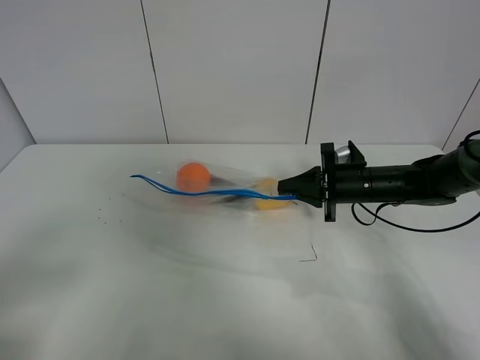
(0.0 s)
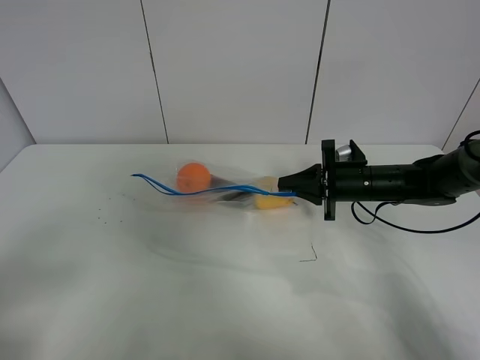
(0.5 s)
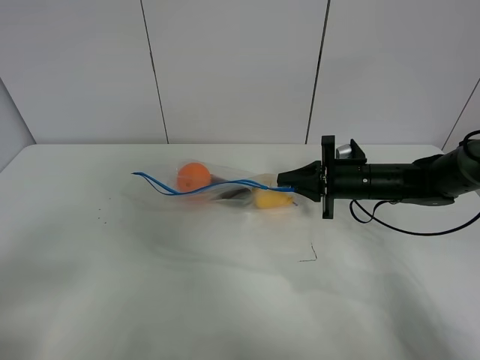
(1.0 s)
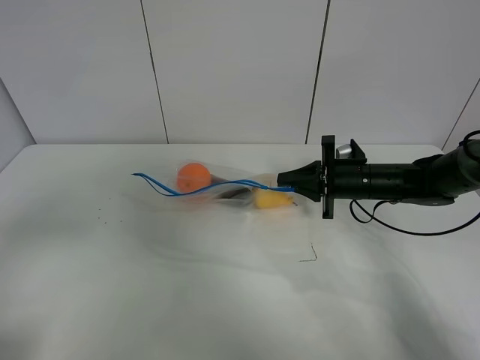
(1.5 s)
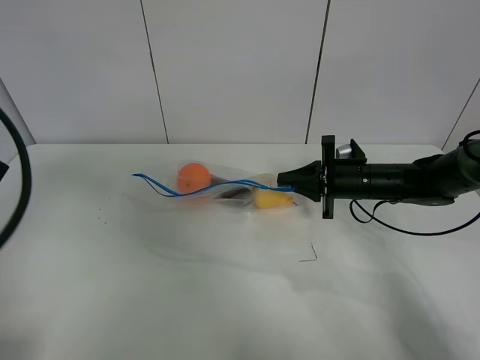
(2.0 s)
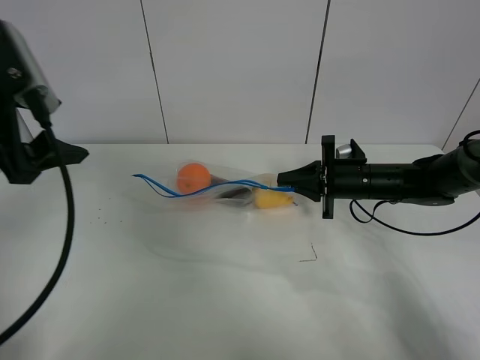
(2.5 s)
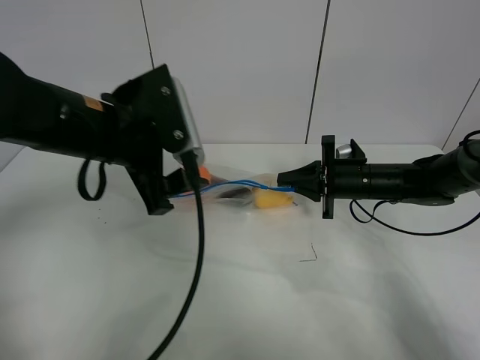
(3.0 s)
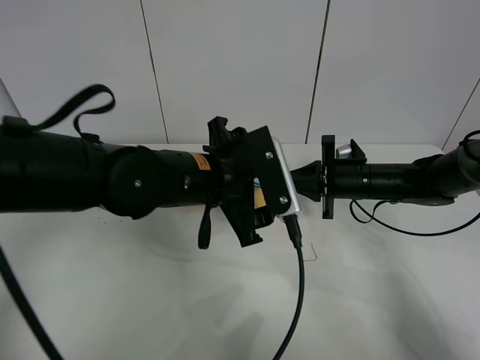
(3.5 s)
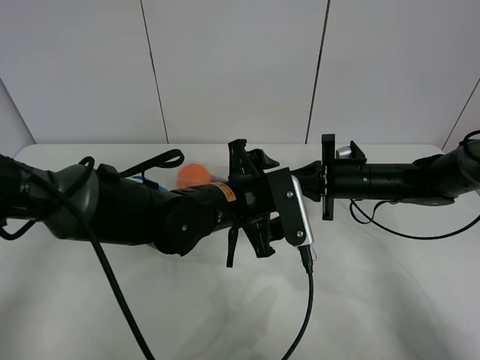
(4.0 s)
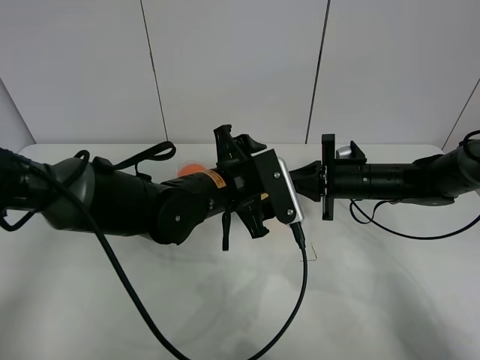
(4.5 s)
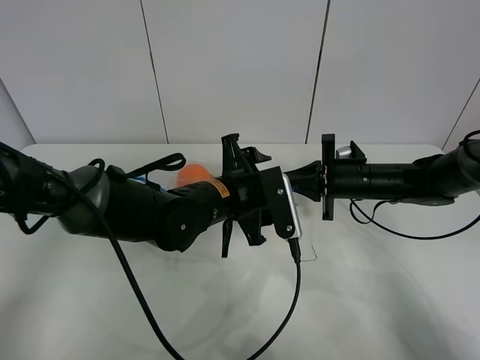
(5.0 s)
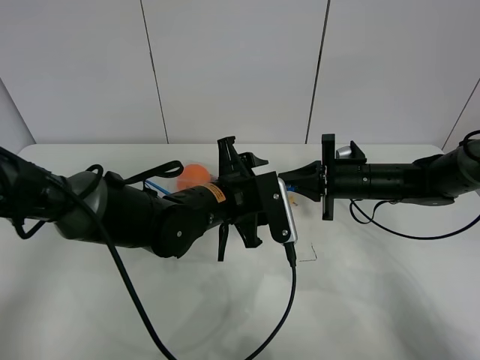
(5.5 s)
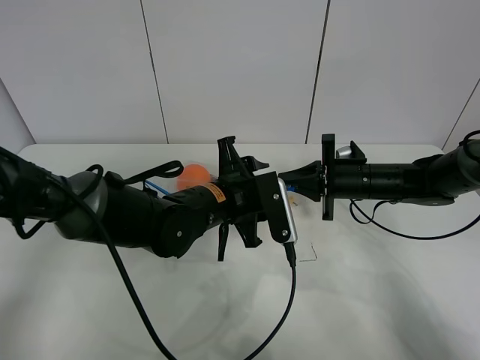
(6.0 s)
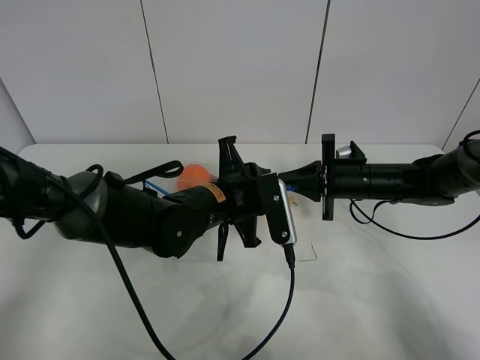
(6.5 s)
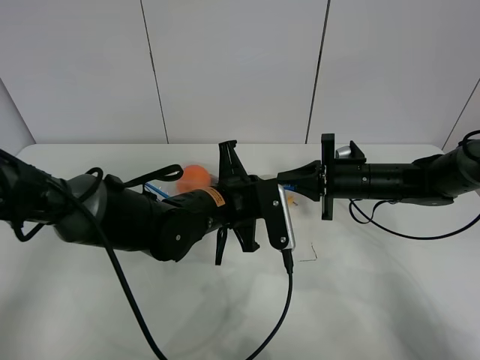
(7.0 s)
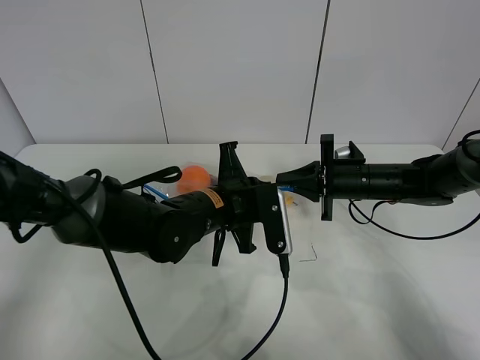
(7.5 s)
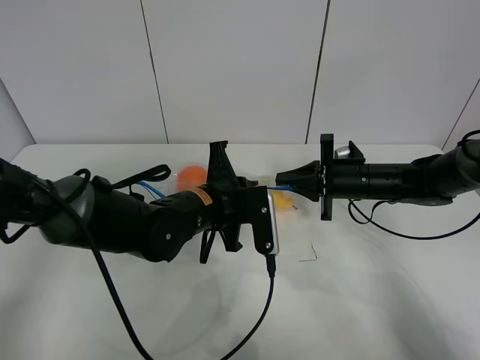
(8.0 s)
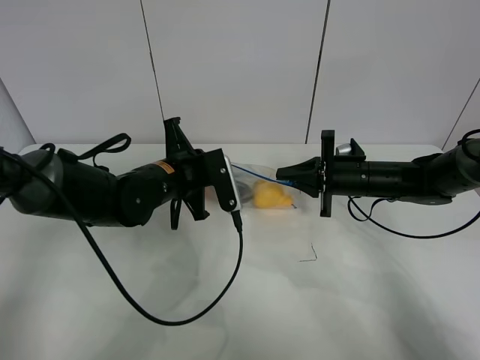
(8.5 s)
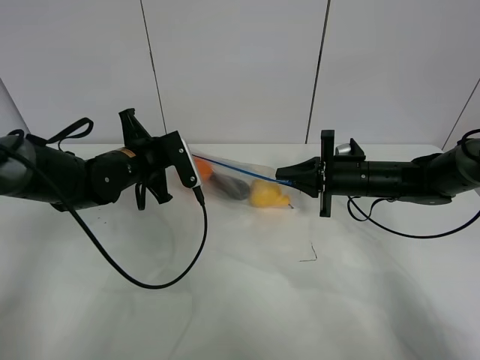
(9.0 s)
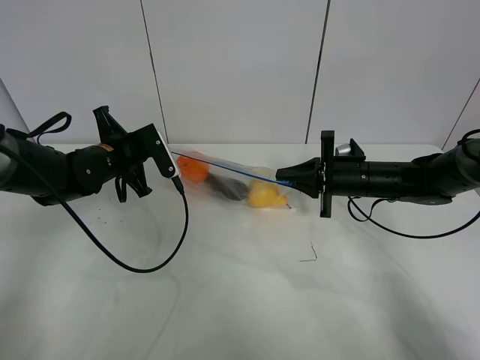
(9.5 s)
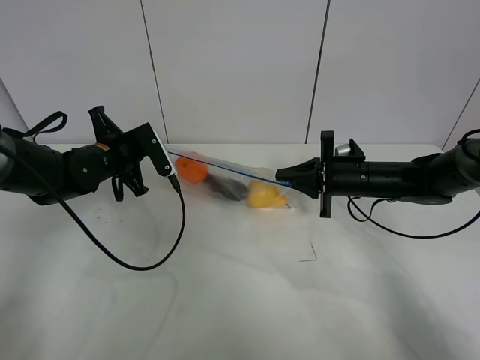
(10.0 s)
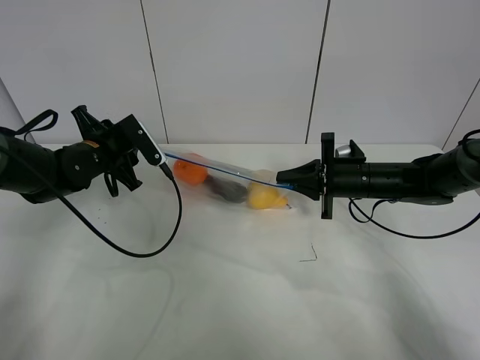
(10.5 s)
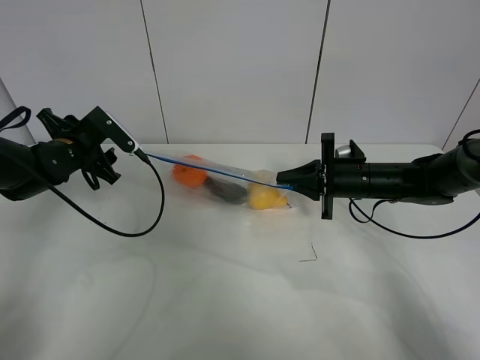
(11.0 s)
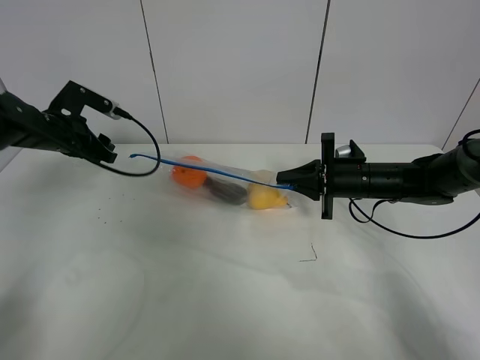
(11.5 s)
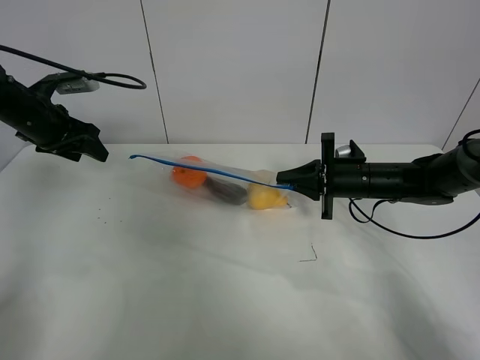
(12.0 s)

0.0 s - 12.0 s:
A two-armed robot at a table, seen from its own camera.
Step, 0.5 s - 10.5 s: Pull the fruit bag with left gripper.
0.0 s - 2.0 s: The left gripper heads forward and upward, covering approximately 20 cm.
2.0 s - 4.0 s: The left gripper travels to the right and downward by approximately 35 cm.
4.0 s - 6.0 s: The left gripper closes its fingers.
6.0 s - 8.0 s: The left gripper closes.
8.0 s - 10.0 s: The left gripper goes approximately 20 cm to the left and forward.
10.0 s - 12.0 s: The left gripper heads to the left and upward, covering approximately 15 cm, and opens up.

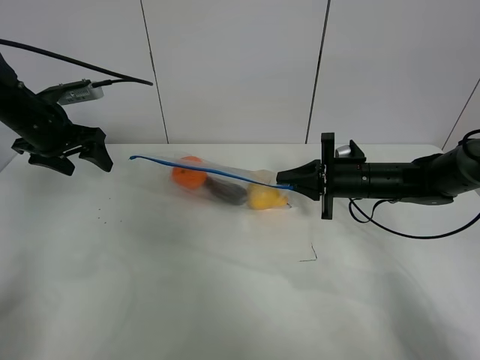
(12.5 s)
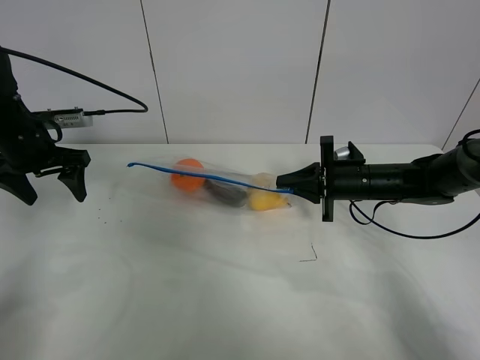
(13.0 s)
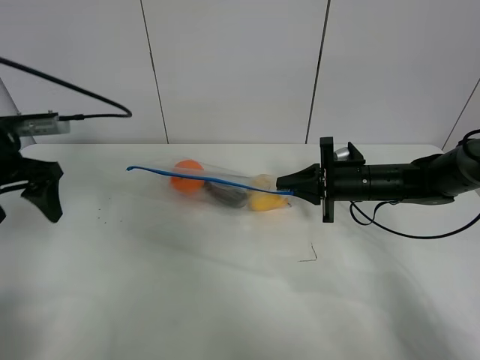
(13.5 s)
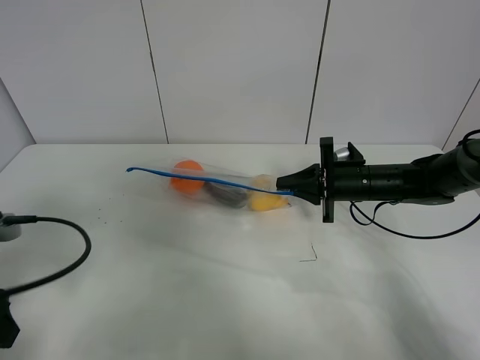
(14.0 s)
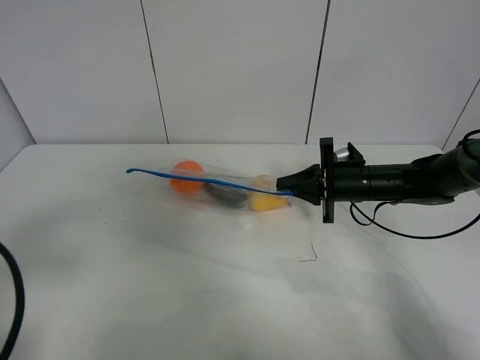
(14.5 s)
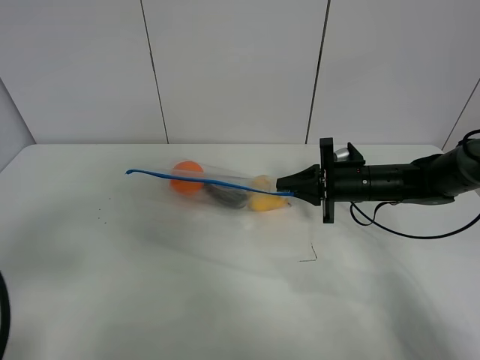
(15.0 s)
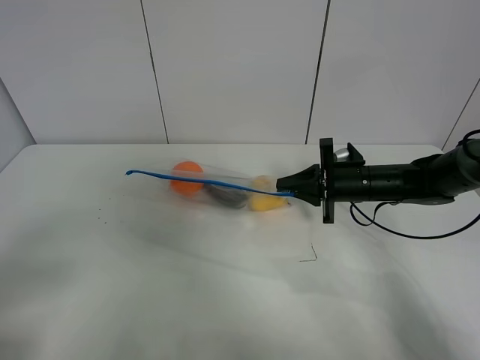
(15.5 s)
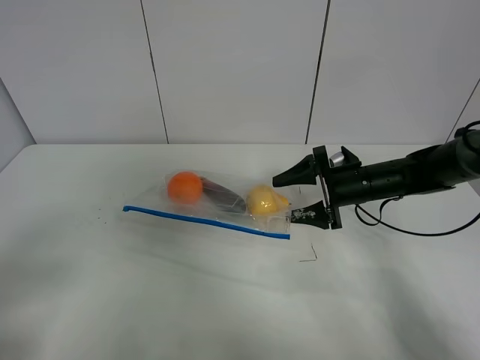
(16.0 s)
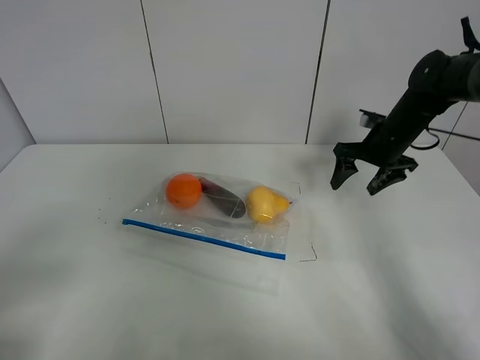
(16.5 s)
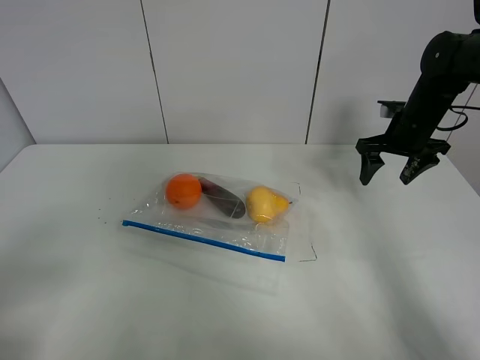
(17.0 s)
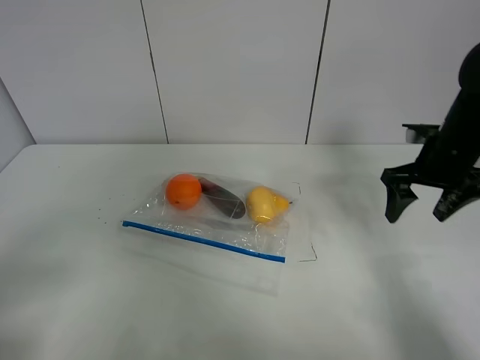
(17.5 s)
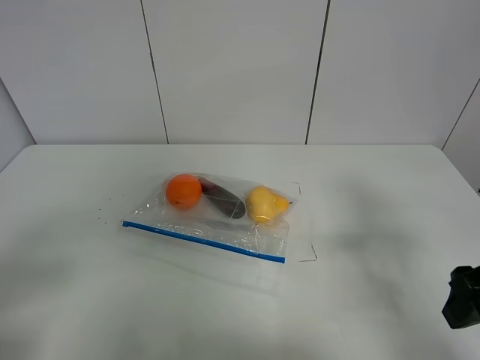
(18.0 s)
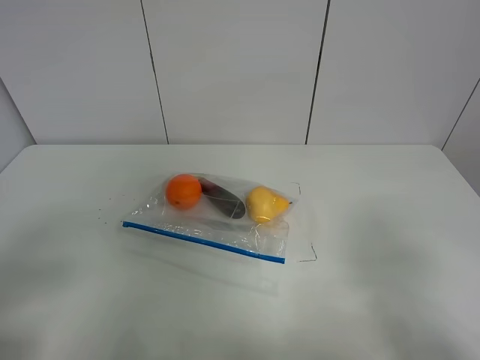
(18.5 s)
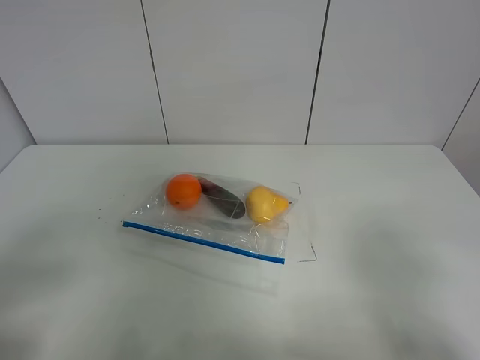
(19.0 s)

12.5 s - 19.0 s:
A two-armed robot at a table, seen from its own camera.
12.5 s - 14.5 s: The left gripper moves backward, roughly 30 cm.
14.5 s - 17.0 s: The left gripper travels backward by approximately 5 cm. The right gripper heads to the right, upward and forward, covering approximately 15 cm, and opens its fingers.
17.0 s - 19.0 s: The right gripper travels backward by some 40 cm.
